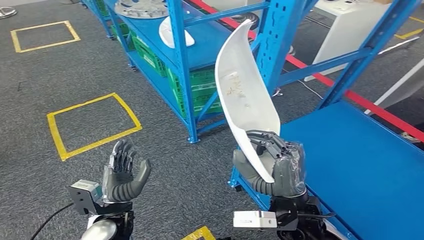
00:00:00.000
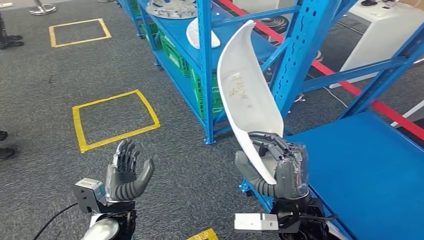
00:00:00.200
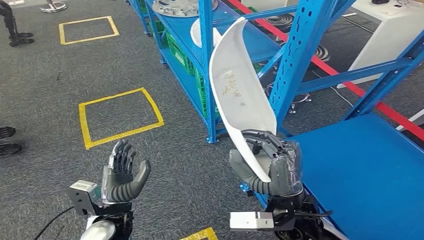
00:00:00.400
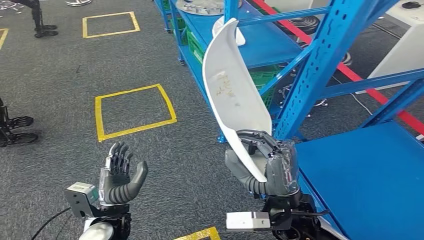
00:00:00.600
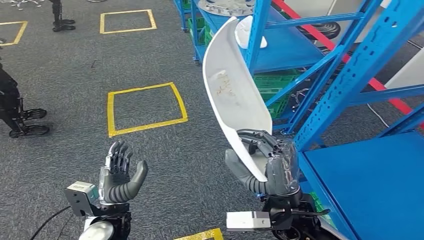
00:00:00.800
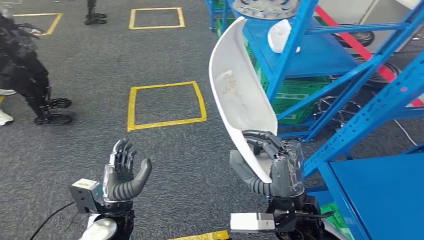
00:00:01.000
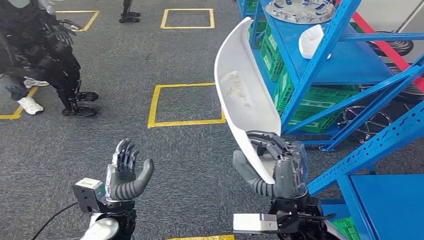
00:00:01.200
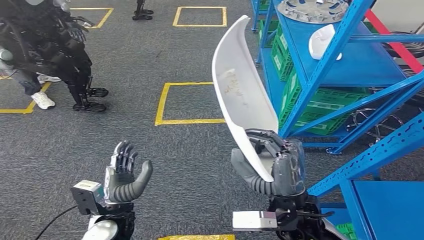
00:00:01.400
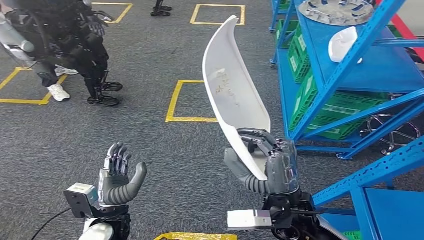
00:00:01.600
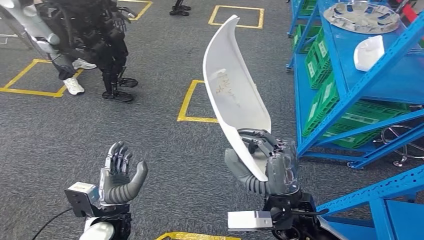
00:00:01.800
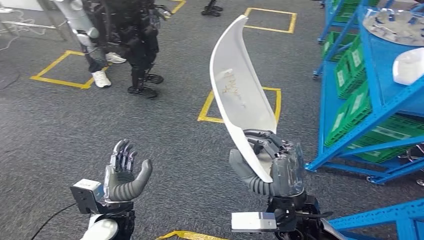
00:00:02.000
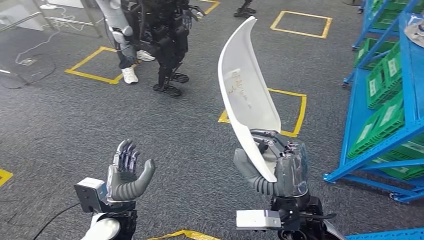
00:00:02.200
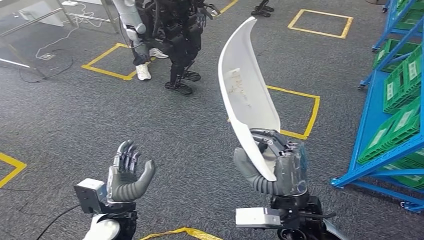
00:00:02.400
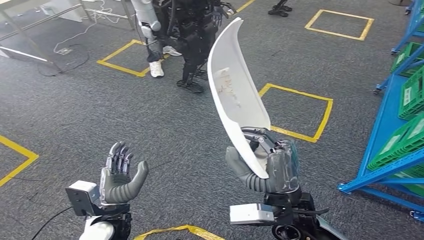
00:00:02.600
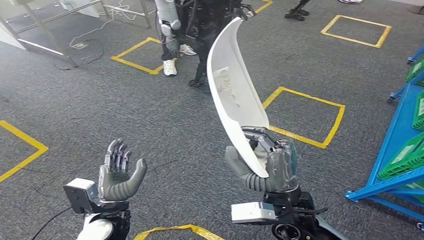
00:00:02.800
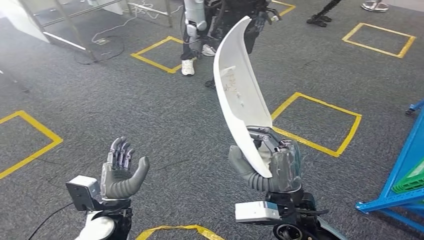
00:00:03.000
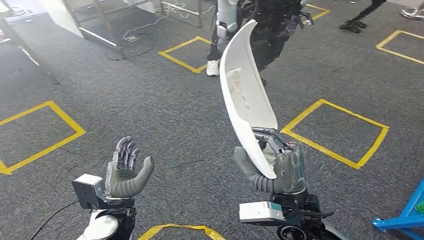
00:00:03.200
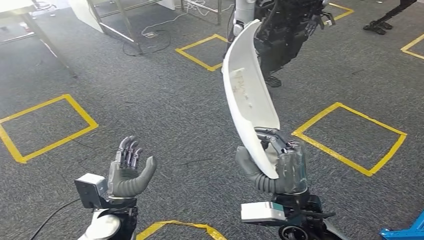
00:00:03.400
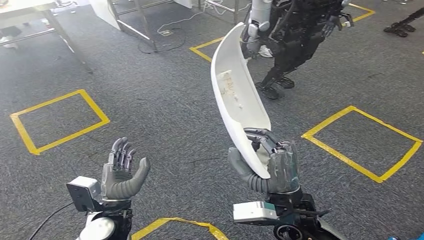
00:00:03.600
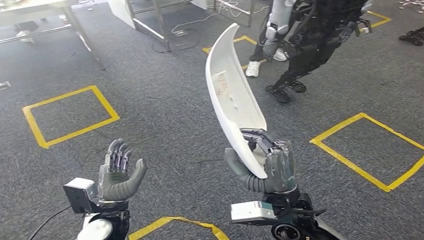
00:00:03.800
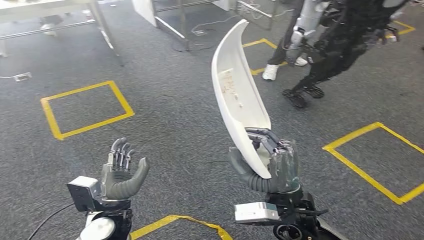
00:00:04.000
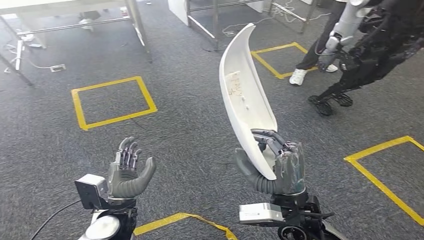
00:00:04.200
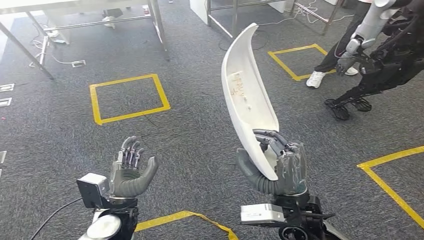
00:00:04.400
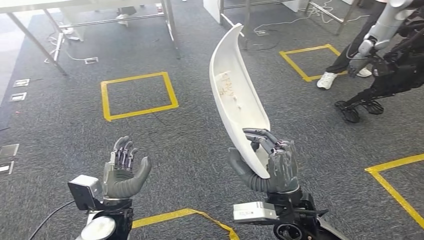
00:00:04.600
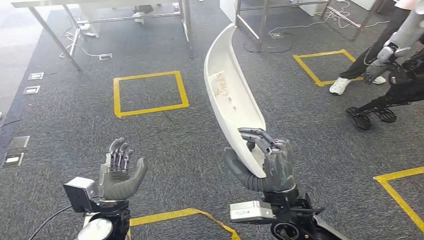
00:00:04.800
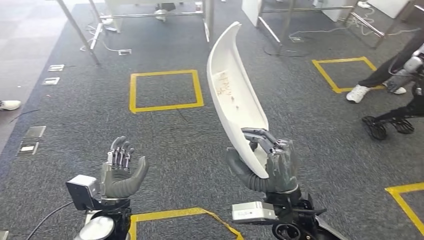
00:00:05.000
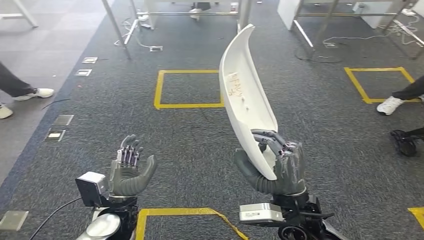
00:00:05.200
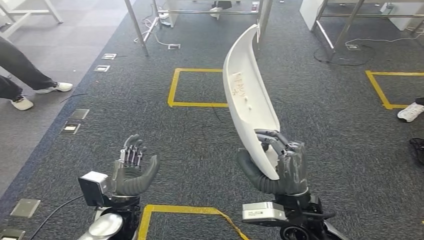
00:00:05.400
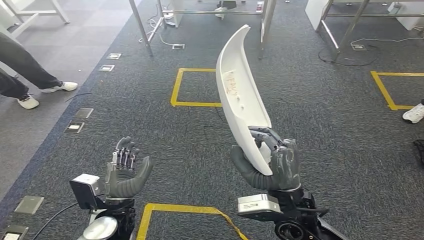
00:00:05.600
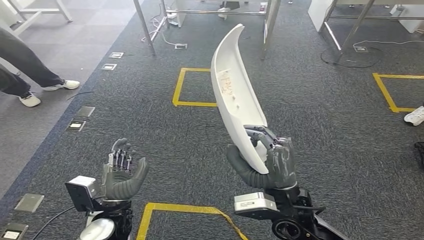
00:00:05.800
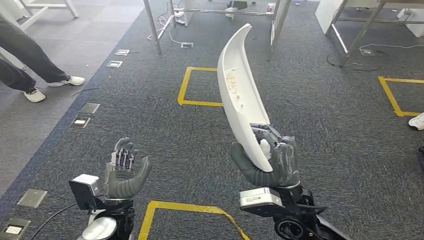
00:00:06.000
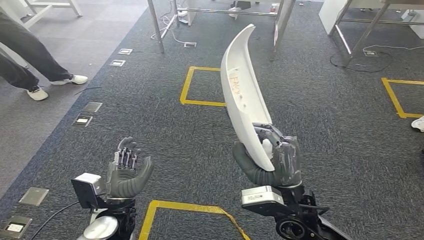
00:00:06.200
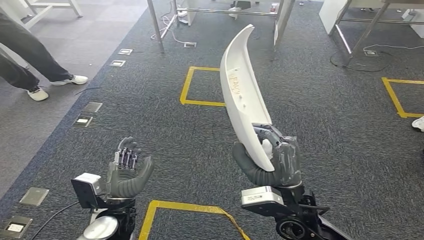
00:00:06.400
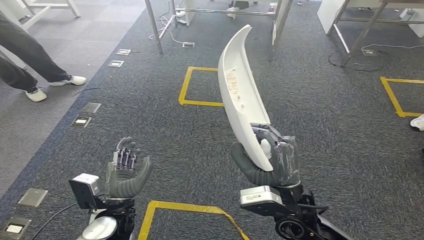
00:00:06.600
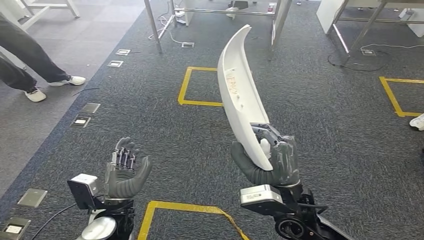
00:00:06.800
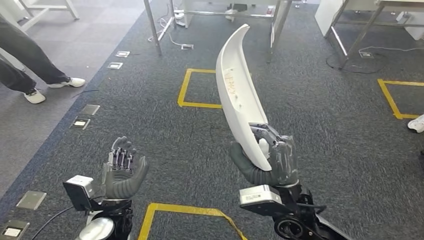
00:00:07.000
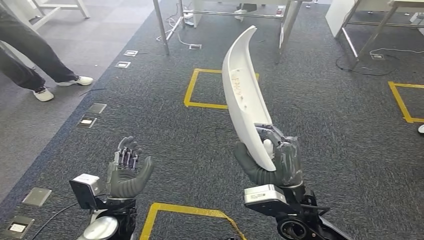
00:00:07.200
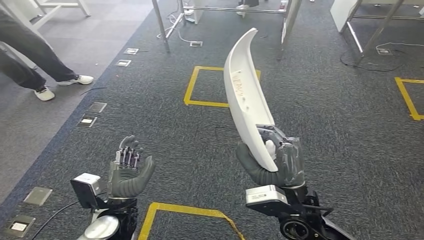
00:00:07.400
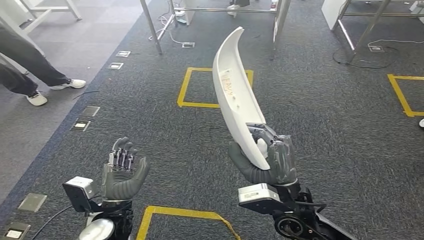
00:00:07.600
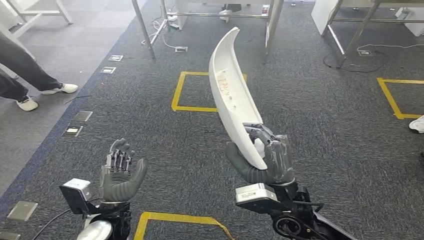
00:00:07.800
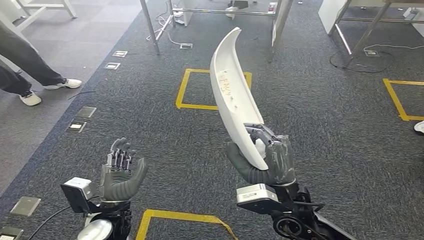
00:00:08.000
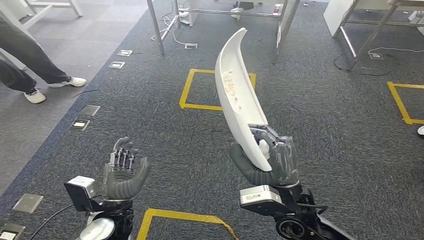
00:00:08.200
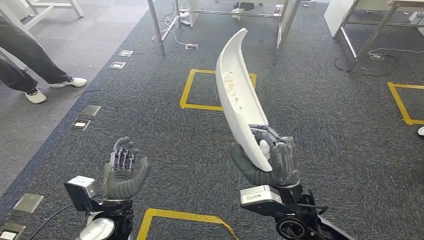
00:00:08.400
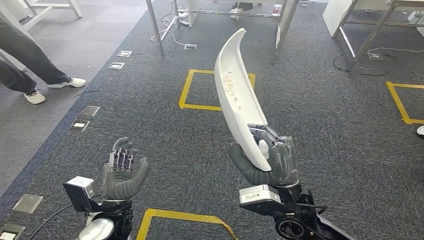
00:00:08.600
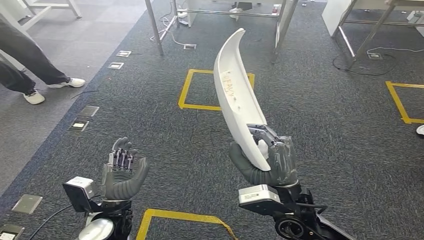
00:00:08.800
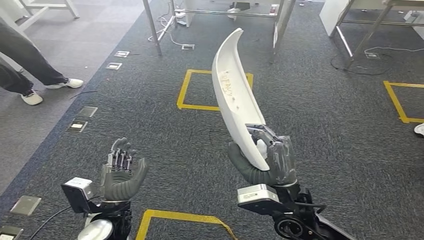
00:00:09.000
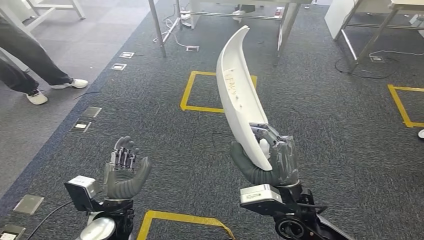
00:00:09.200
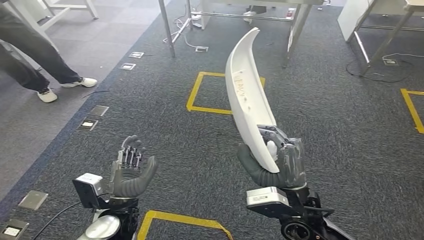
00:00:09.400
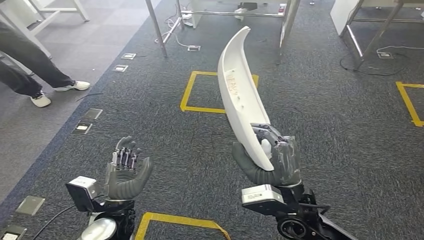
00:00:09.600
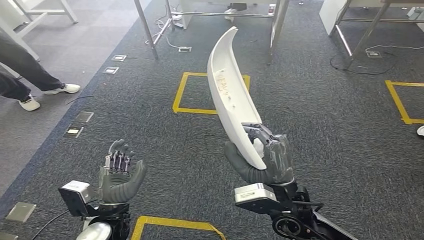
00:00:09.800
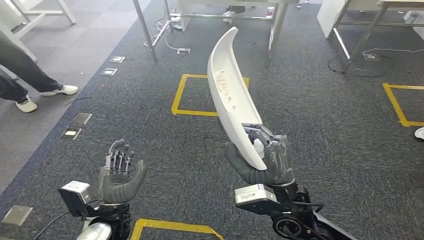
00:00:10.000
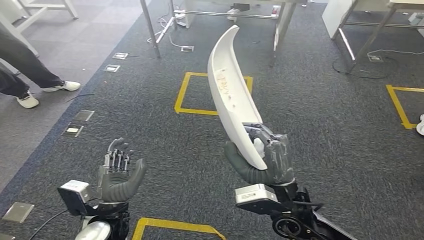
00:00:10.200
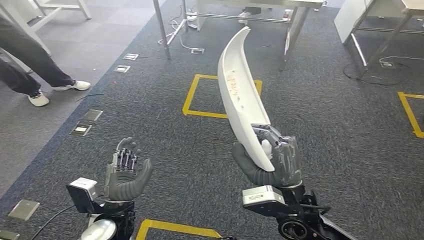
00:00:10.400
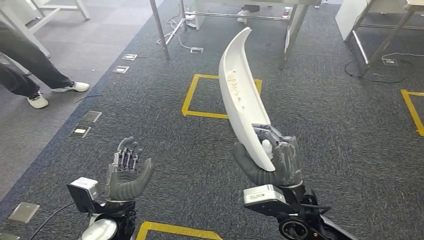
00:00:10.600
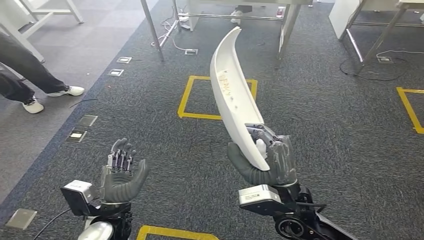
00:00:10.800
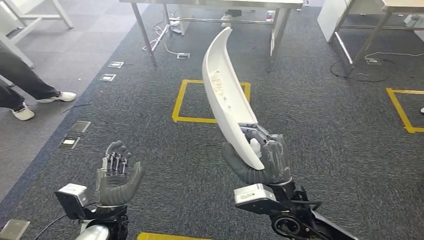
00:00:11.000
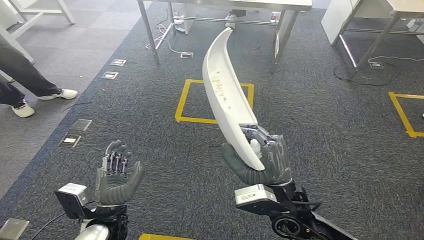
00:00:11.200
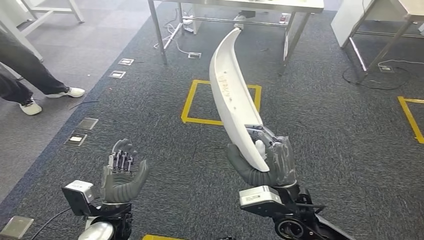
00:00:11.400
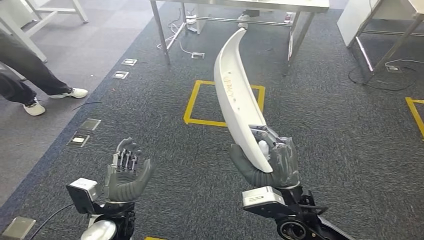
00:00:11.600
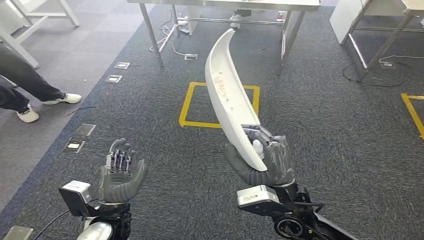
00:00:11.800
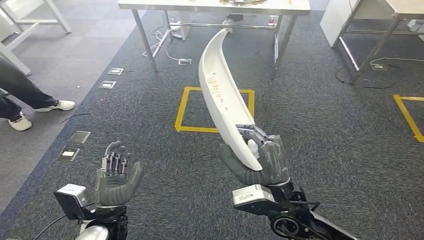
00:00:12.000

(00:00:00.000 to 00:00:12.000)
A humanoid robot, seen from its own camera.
00:00:06.000 - 00:00:09.000: Both hands stay put.

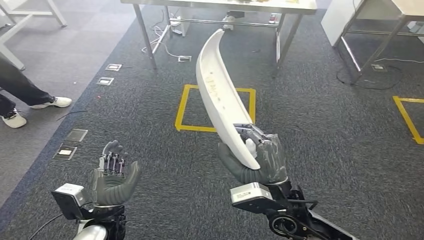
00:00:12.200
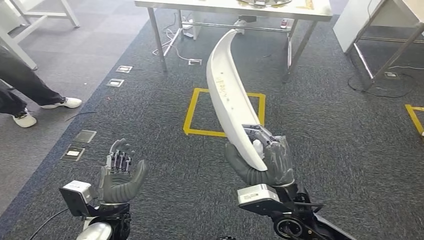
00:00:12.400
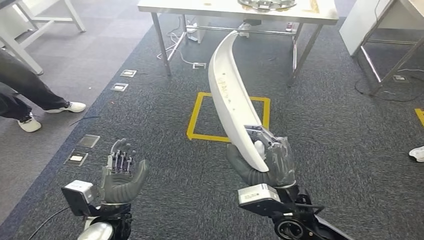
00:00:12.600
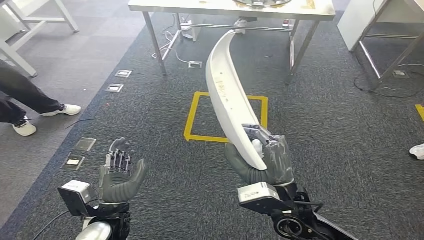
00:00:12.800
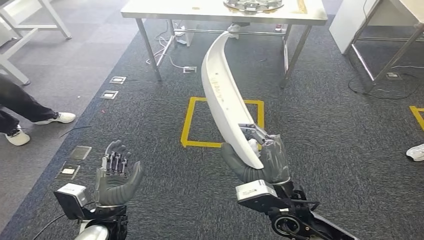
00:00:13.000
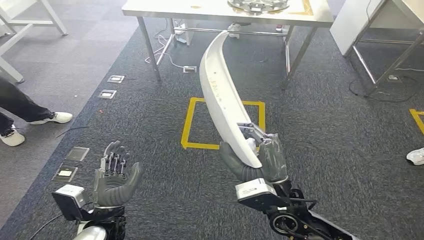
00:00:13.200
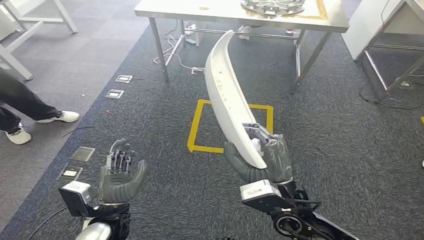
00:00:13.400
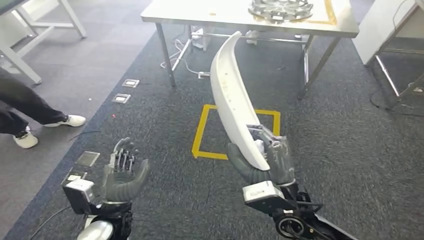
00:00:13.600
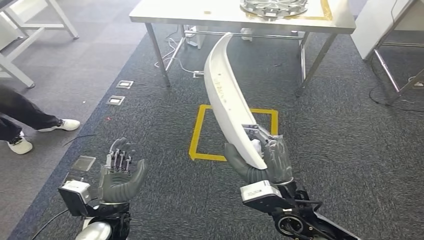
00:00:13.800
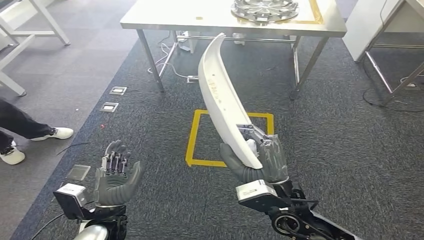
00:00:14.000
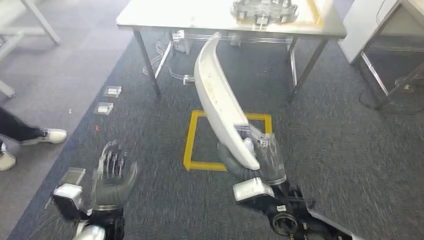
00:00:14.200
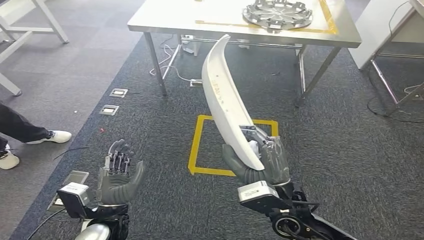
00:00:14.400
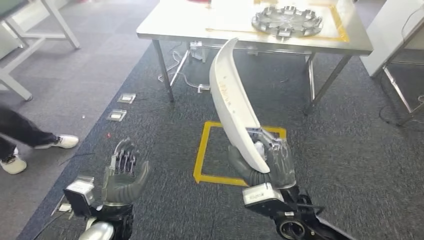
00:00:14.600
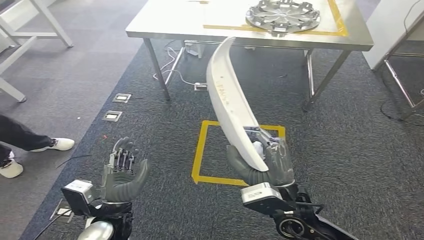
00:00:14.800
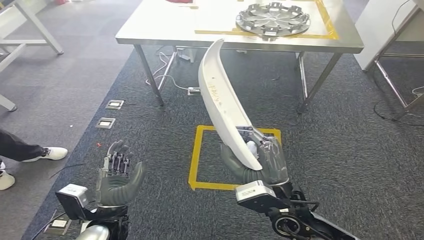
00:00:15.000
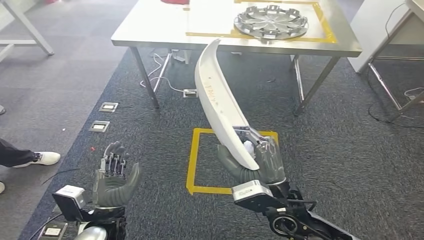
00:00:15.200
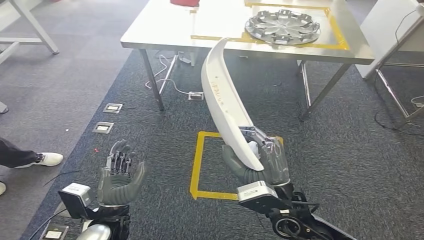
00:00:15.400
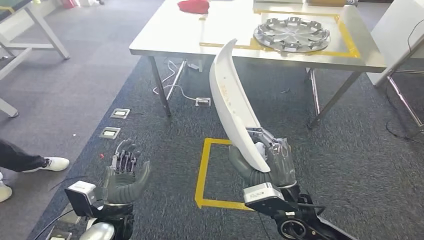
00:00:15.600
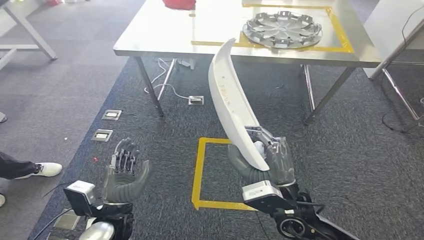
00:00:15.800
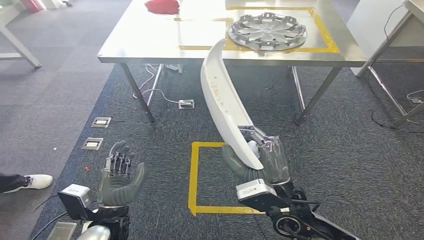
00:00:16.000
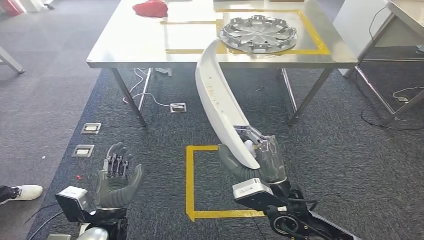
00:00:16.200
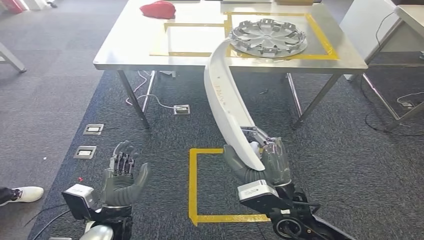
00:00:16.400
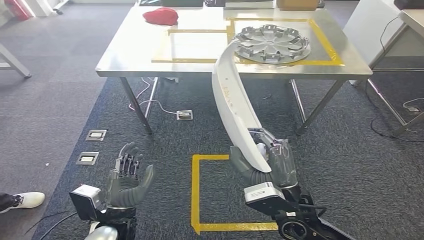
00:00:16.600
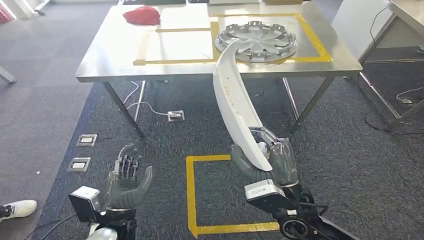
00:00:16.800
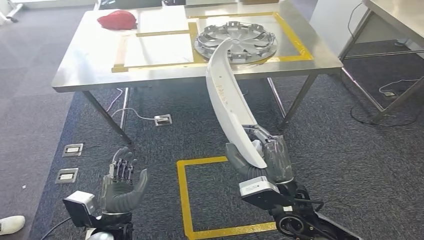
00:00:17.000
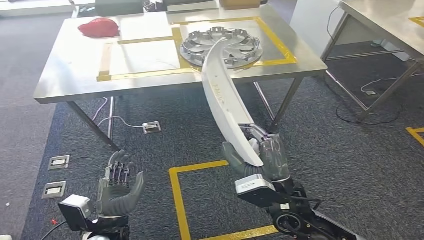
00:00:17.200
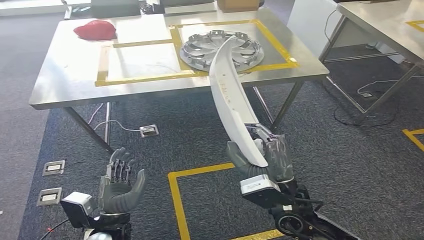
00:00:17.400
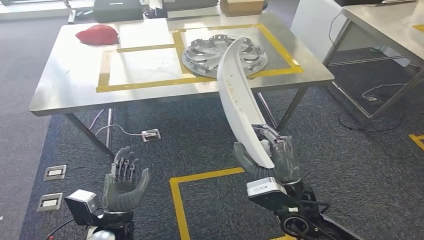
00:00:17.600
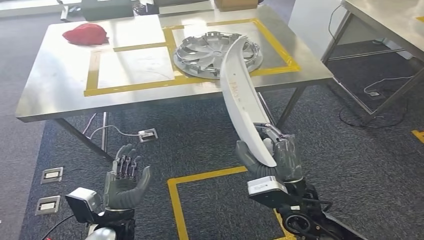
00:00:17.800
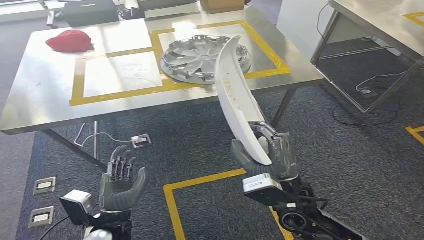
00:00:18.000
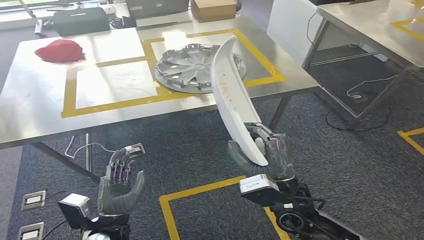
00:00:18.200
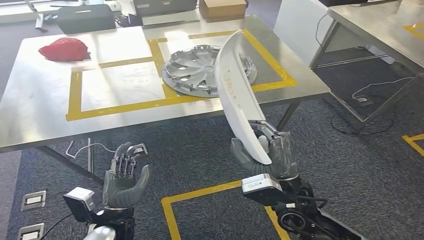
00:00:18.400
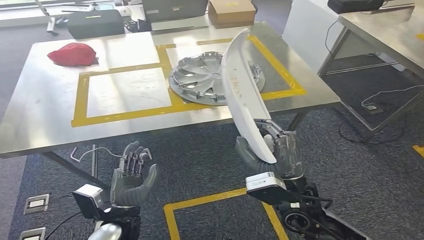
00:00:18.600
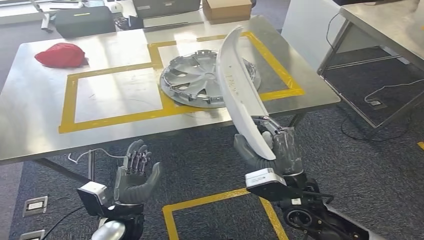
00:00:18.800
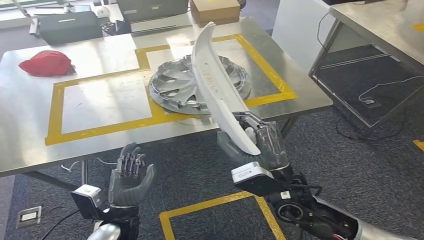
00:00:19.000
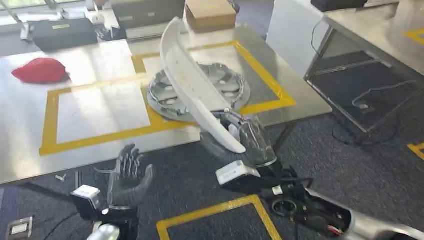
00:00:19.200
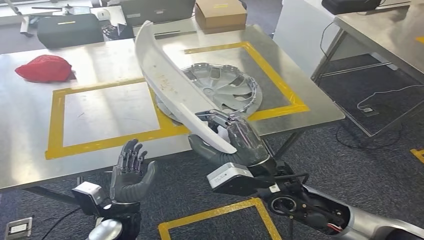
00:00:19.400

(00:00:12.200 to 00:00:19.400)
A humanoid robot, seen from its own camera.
Step, 00:00:12.200 - 00:00:19.000: Move the small component to the workbench.
